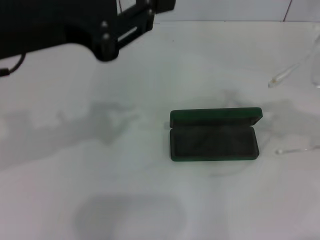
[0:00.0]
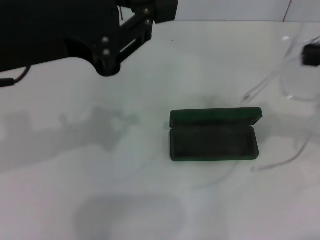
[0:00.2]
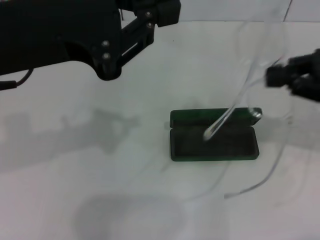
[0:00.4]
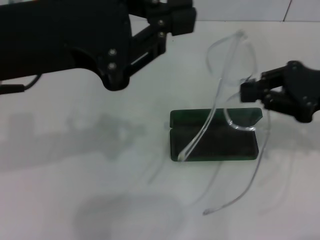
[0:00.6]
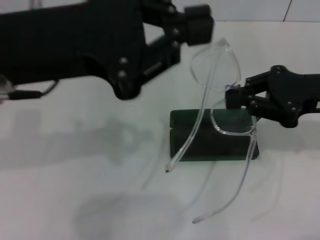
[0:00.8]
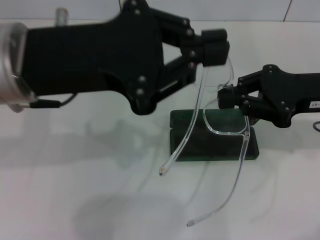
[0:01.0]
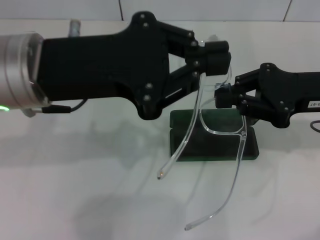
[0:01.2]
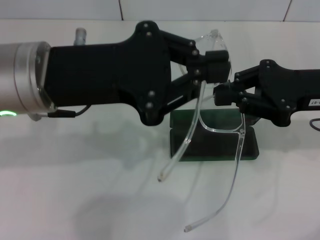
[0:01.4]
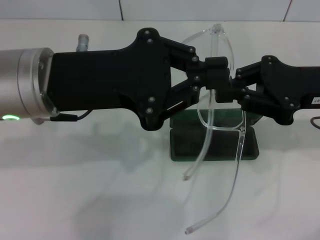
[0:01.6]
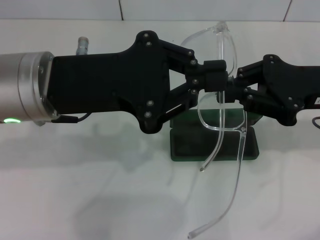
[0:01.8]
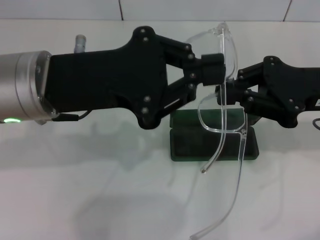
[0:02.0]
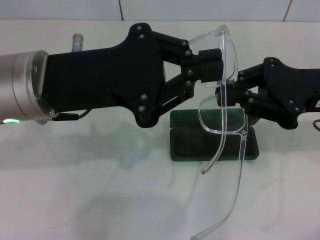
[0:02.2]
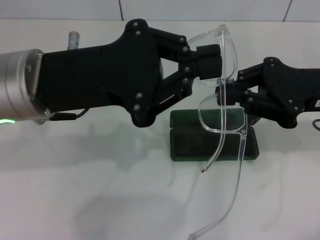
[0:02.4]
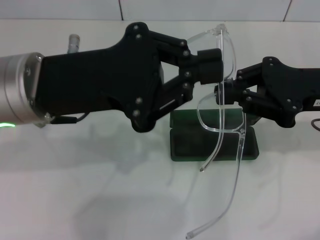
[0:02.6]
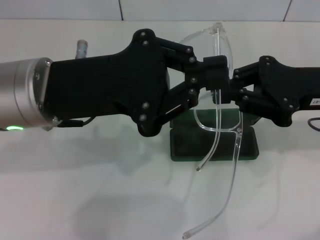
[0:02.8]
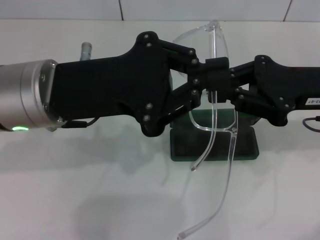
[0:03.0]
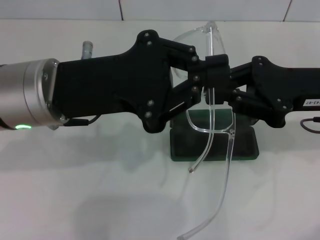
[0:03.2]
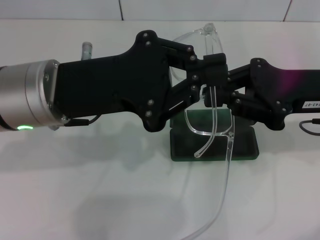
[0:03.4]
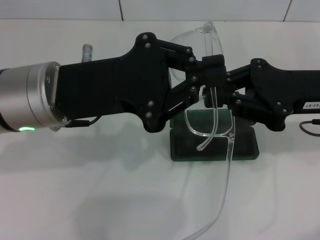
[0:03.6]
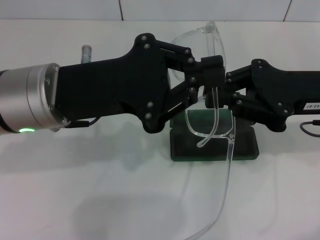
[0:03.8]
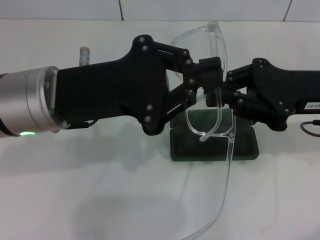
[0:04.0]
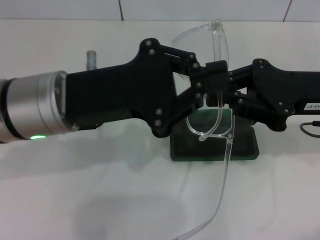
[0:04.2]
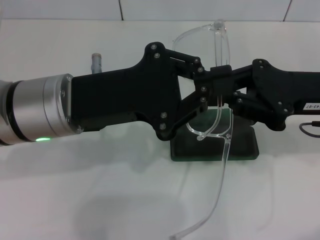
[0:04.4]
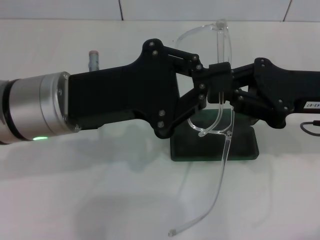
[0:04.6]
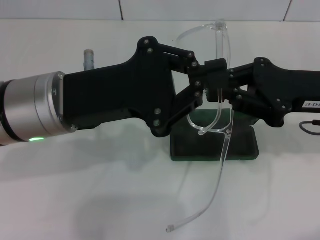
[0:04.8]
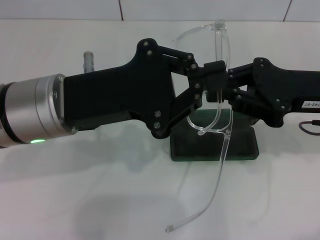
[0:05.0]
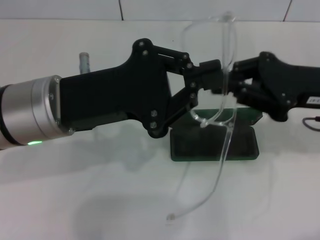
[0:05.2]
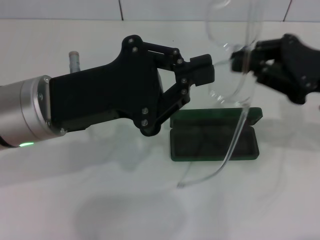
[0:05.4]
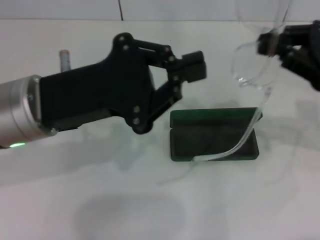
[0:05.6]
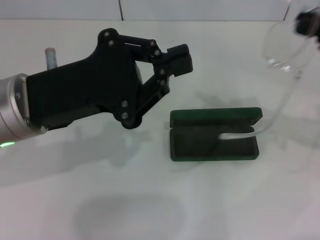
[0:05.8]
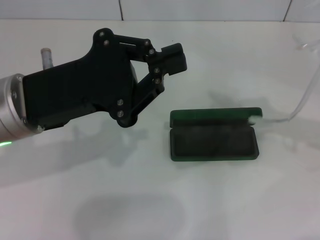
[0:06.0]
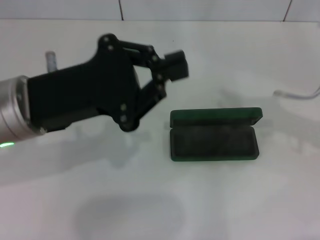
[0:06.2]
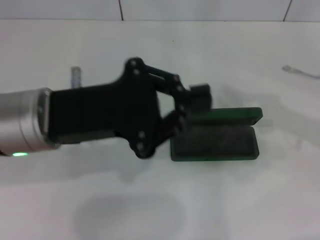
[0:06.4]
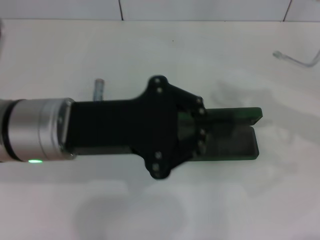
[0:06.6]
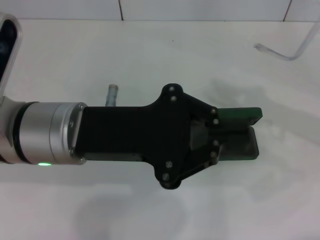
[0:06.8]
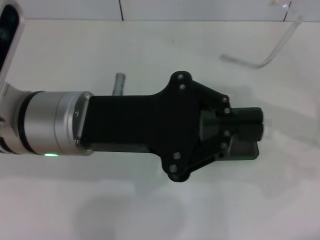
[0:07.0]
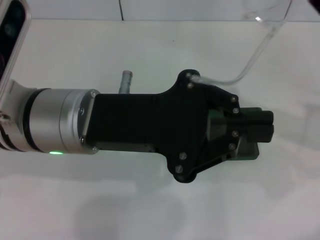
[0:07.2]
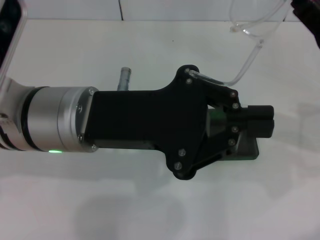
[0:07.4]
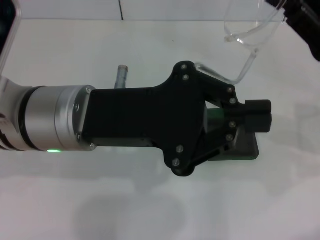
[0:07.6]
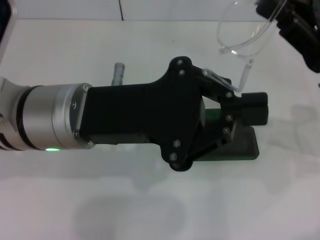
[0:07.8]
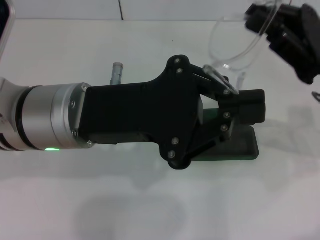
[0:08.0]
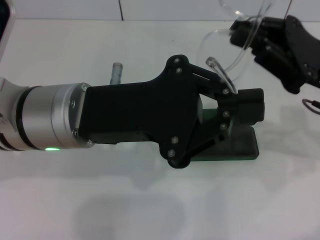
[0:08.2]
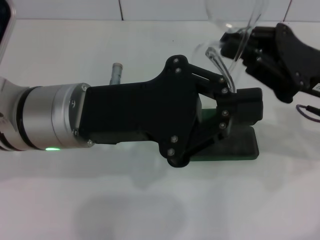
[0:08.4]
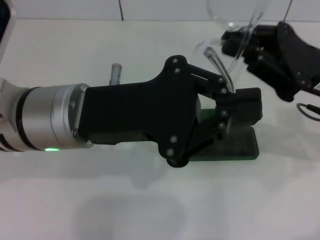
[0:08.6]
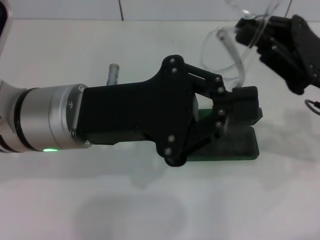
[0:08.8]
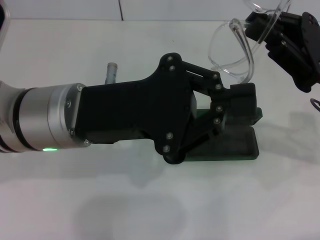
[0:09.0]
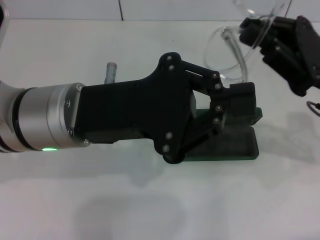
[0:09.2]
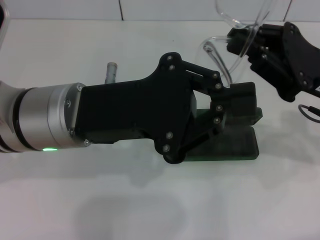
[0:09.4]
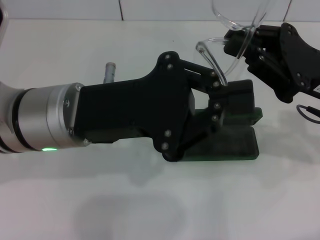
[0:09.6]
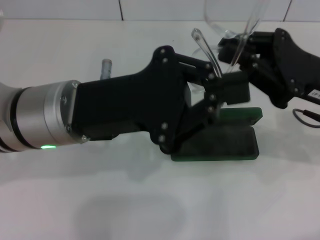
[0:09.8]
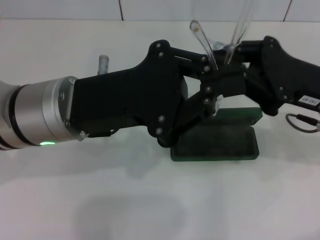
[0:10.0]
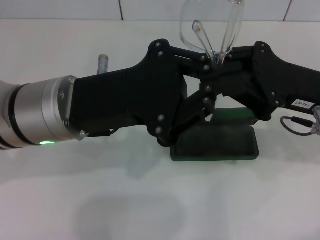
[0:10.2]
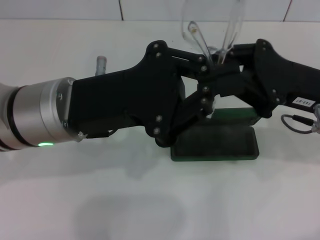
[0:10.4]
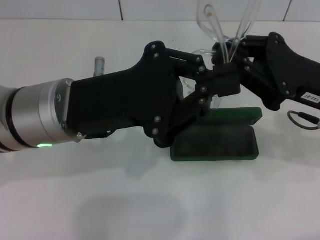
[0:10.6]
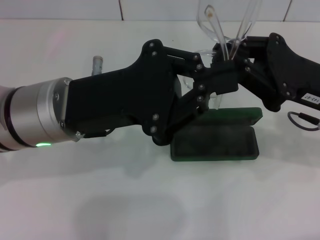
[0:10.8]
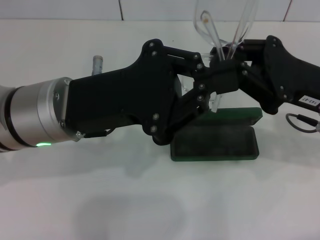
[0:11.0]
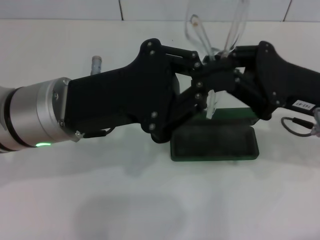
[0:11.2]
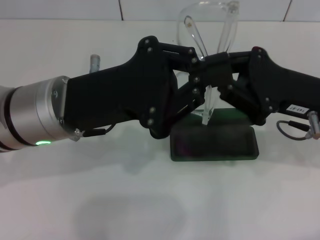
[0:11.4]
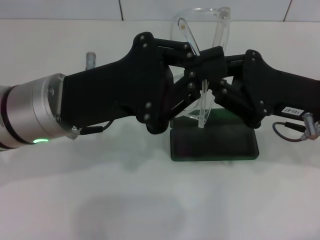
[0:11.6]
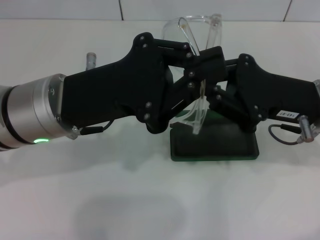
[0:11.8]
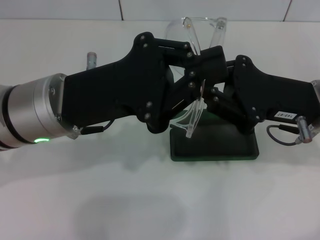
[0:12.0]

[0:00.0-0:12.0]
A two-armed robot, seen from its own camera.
0:00.0 to 0:01.6: The right gripper goes about 10 cm to the left; the left gripper is displaced downward by roughly 5 cm, and closes its fingers.
0:01.6 to 0:04.4: There are only small adjustments of the grippers.
0:04.4 to 0:06.0: The right gripper goes approximately 10 cm to the right.
0:06.0 to 0:07.6: The right gripper is displaced to the left by approximately 10 cm, while the left gripper moves to the right, some 5 cm.
0:07.6 to 0:09.0: The grippers make only small movements.
0:10.4 to 0:12.0: The grippers move only a little.

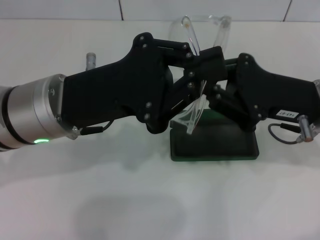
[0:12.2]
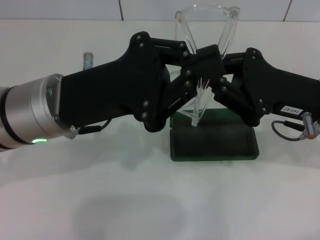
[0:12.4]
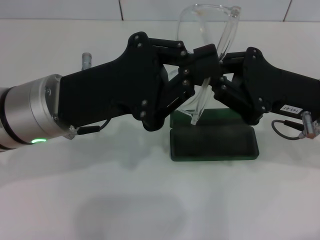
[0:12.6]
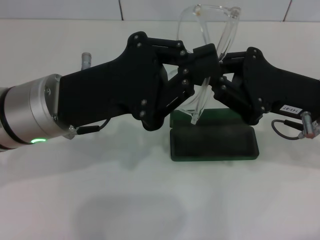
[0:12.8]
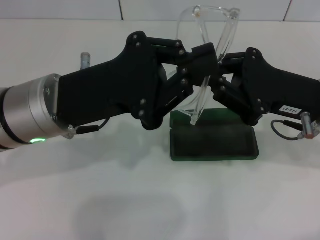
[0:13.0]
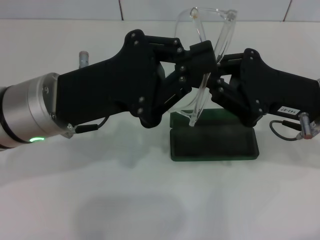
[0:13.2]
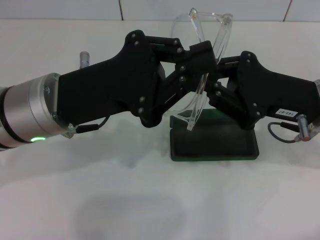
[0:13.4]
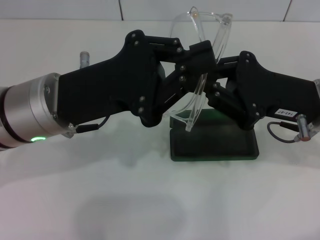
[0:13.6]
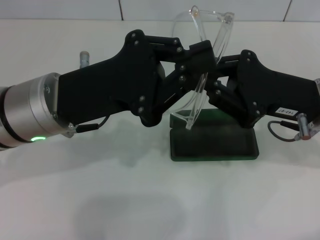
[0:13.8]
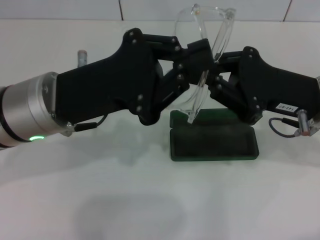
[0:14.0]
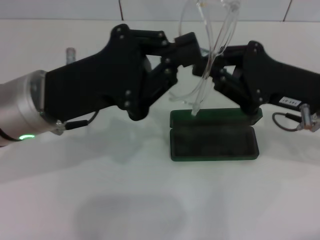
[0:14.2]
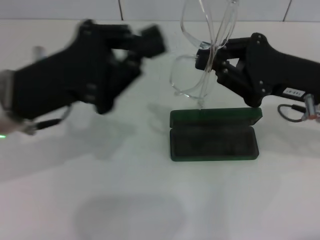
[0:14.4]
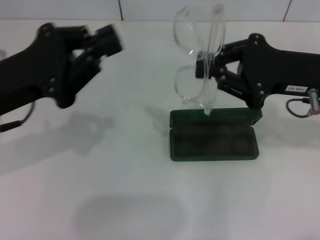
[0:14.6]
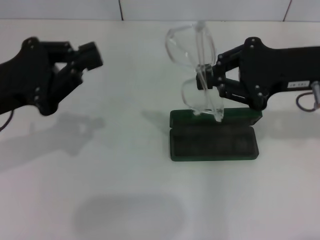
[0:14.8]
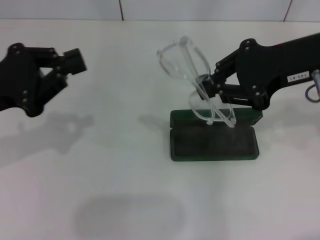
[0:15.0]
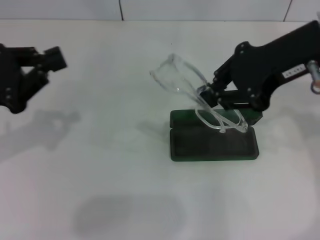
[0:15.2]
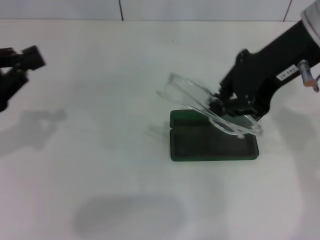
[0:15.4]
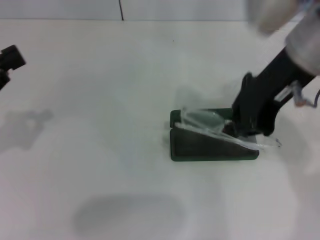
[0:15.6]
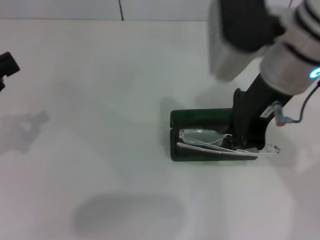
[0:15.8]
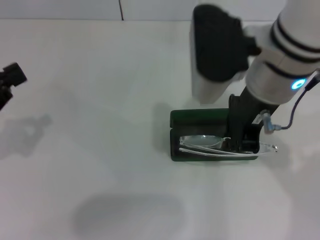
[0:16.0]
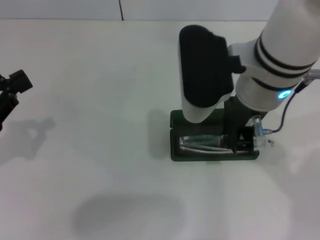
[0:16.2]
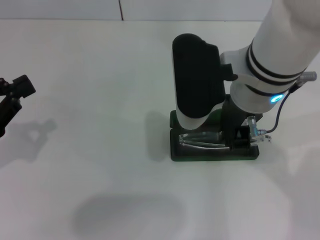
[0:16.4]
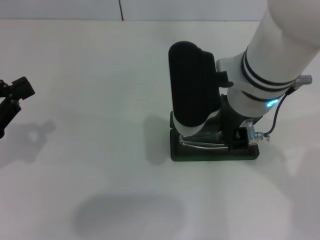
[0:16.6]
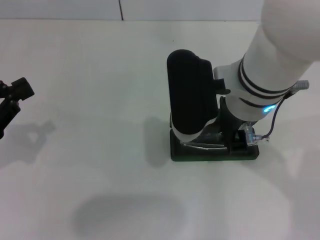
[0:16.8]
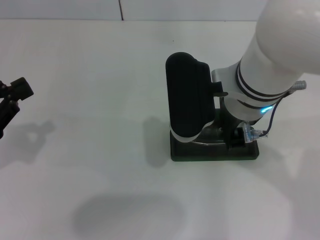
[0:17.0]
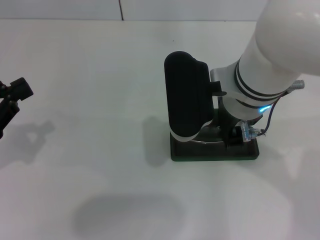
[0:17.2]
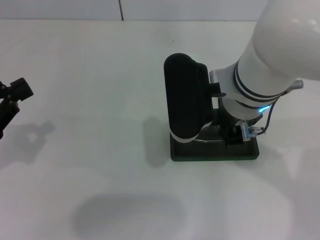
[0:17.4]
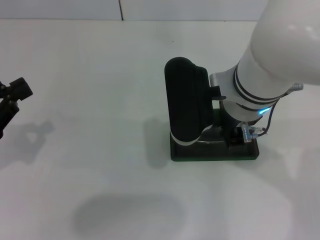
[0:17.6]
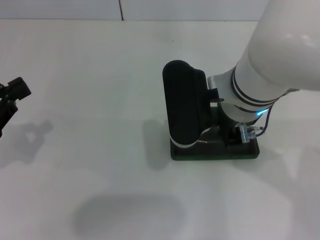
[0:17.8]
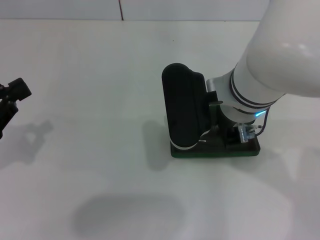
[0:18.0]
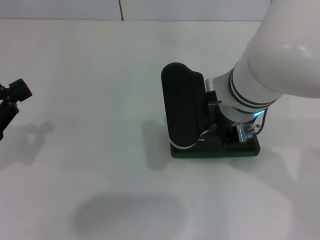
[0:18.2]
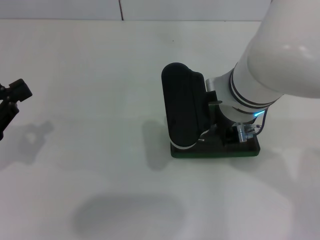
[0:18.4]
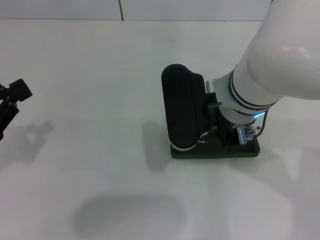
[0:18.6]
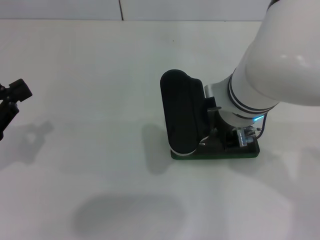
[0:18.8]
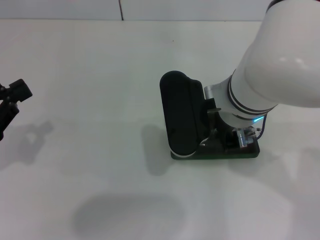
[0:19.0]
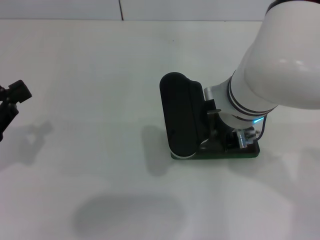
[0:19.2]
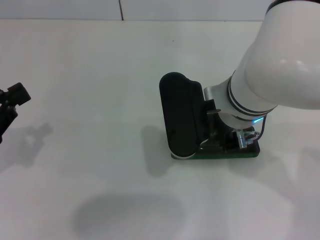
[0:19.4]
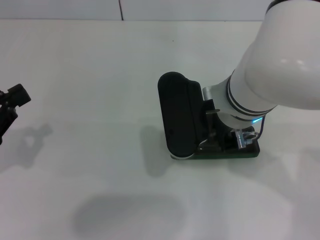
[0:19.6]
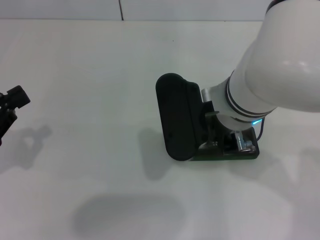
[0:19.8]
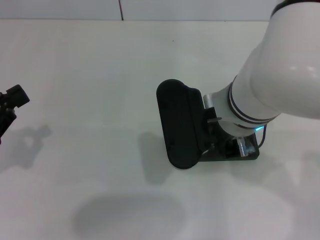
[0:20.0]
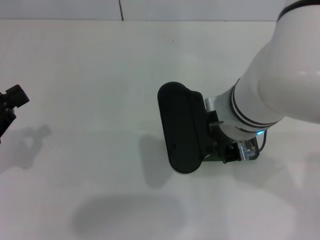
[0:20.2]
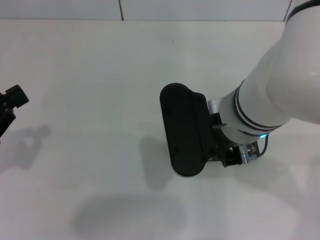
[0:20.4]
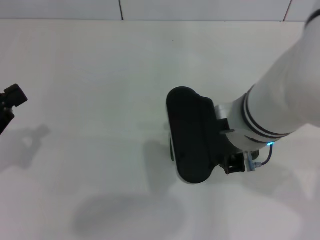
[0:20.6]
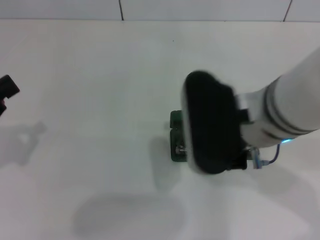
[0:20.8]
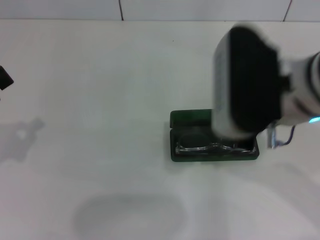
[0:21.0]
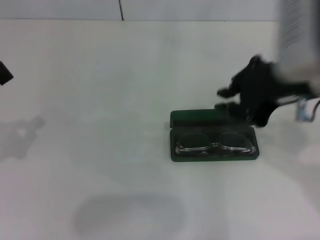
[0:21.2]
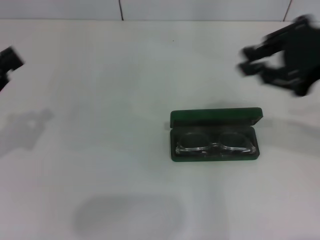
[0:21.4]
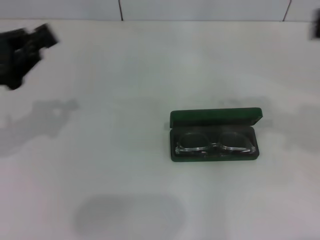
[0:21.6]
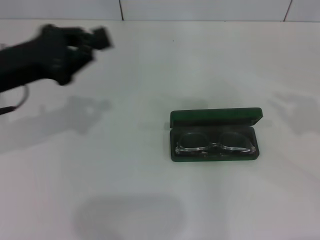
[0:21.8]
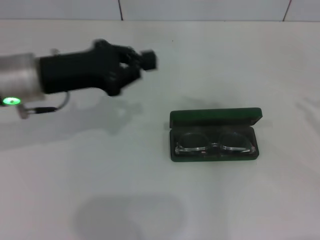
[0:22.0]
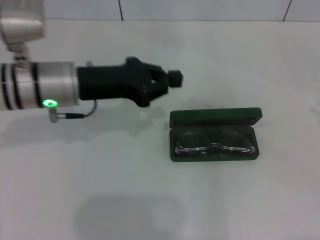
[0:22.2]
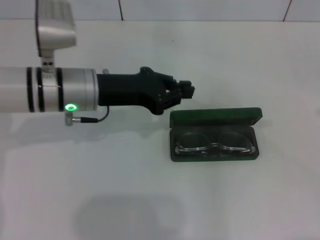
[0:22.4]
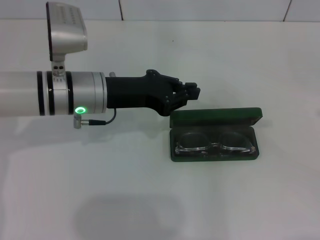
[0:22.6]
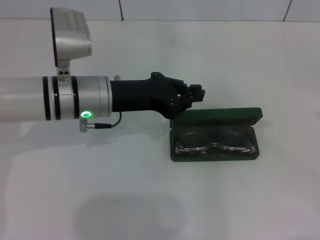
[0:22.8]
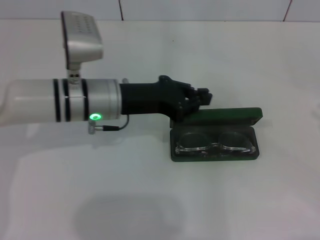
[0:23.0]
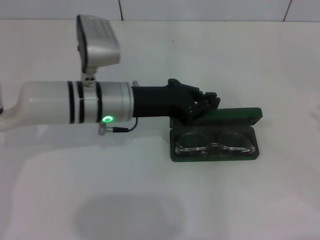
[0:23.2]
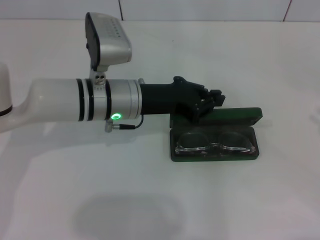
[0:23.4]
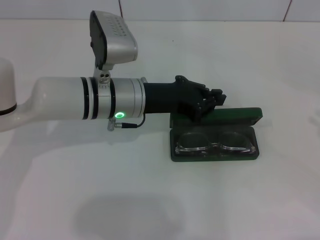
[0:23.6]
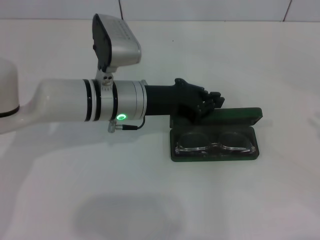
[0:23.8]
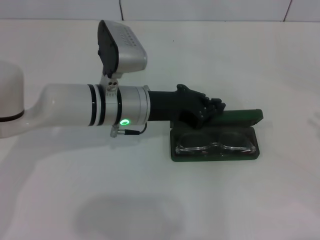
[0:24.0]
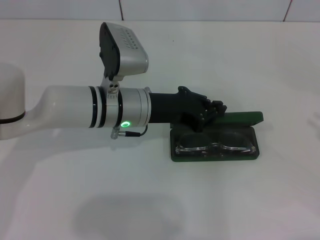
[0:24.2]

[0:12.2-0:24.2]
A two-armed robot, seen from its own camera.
Step, 0:13.8 to 0:20.8: Put the glasses into the case with your right hand.
0:12.2 to 0:13.8: The two grippers keep their place.
0:13.8 to 0:15.2: The right gripper travels upward by roughly 15 cm; the left gripper shifts approximately 15 cm to the left.
0:15.2 to 0:16.6: The left gripper moves some 5 cm. Meanwhile the right gripper is displaced to the left and downward by some 15 cm.
0:16.6 to 0:18.2: The grippers stay close to where they were, moving slightly.
0:18.2 to 0:19.8: Neither gripper changes place.
0:19.8 to 0:21.2: The right gripper is displaced to the right and upward by some 15 cm.
0:21.2 to 0:22.6: The left gripper is displaced to the right and forward by roughly 25 cm. Meanwhile the right gripper goes some 25 cm to the right.
0:22.6 to 0:24.2: The left gripper heads to the right, covering approximately 5 cm.
